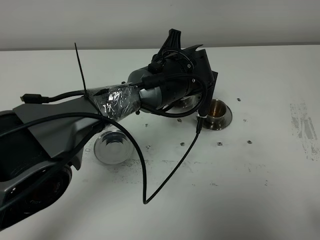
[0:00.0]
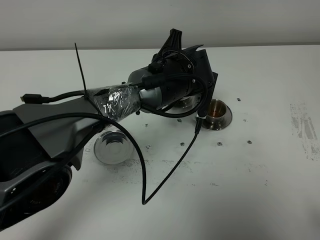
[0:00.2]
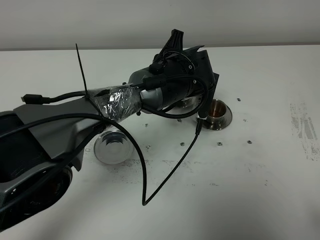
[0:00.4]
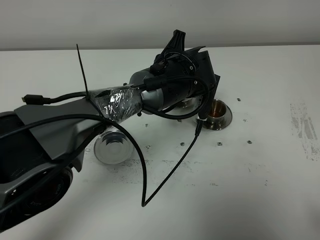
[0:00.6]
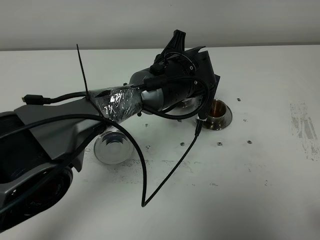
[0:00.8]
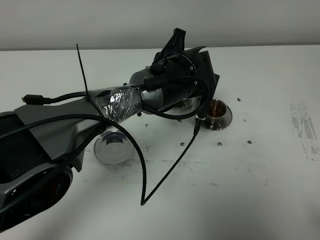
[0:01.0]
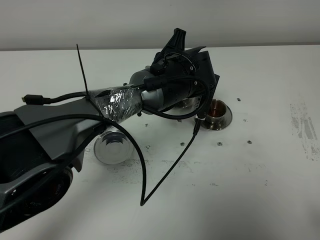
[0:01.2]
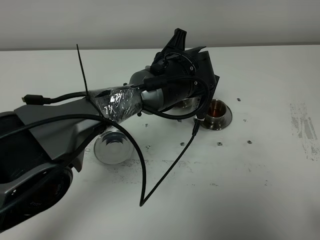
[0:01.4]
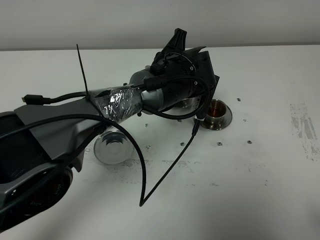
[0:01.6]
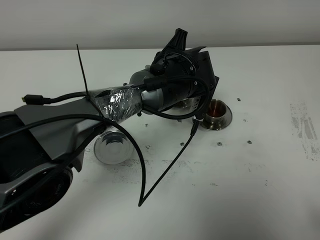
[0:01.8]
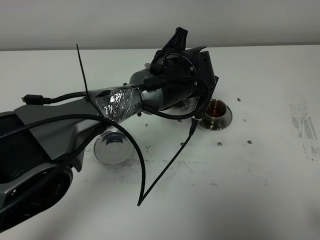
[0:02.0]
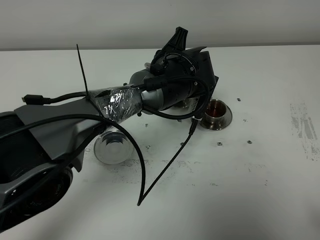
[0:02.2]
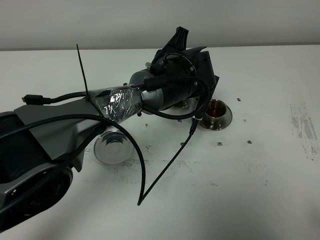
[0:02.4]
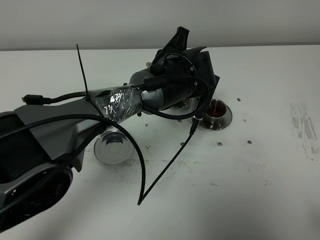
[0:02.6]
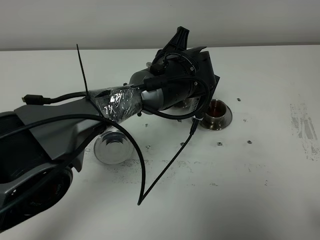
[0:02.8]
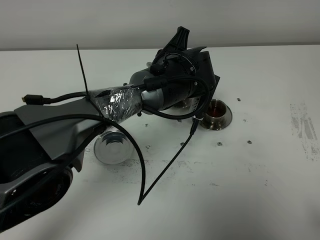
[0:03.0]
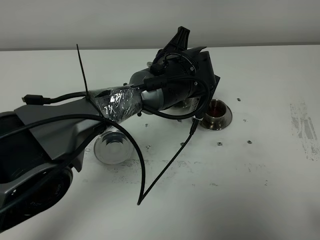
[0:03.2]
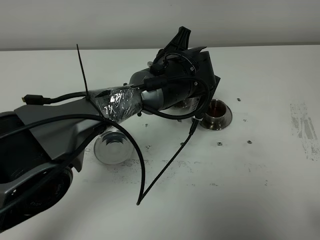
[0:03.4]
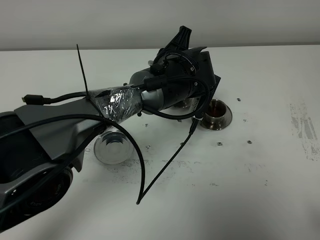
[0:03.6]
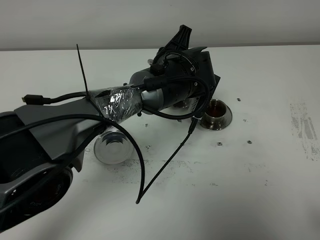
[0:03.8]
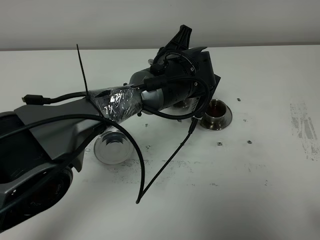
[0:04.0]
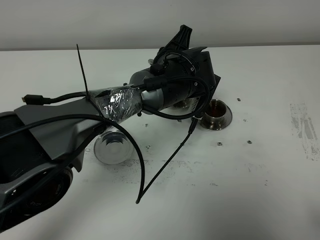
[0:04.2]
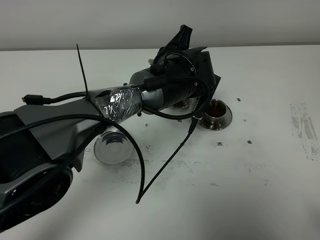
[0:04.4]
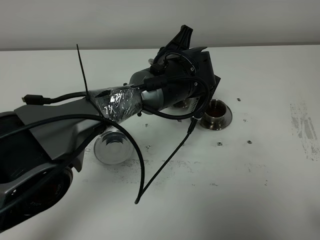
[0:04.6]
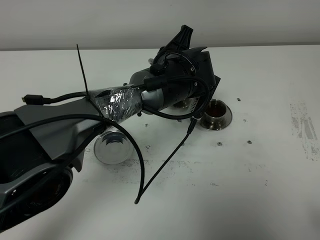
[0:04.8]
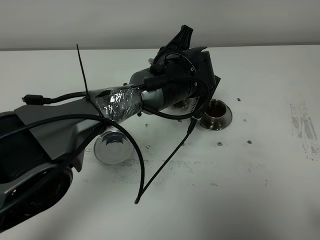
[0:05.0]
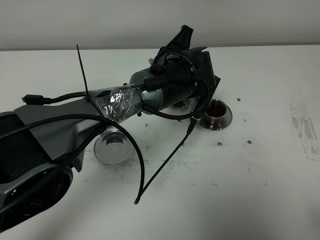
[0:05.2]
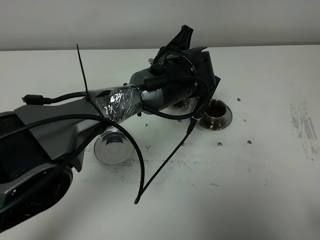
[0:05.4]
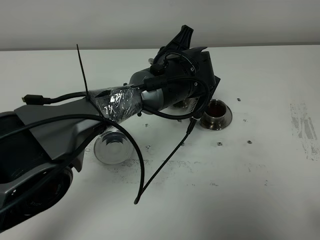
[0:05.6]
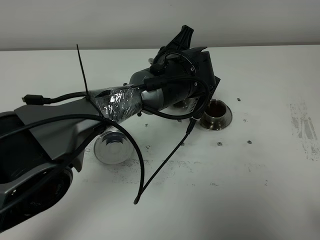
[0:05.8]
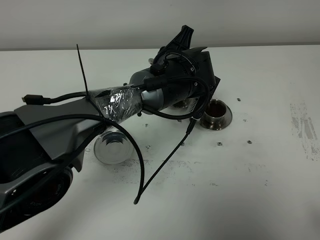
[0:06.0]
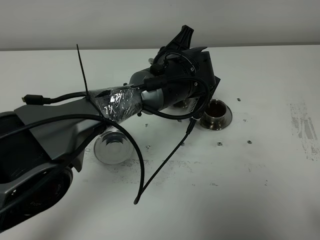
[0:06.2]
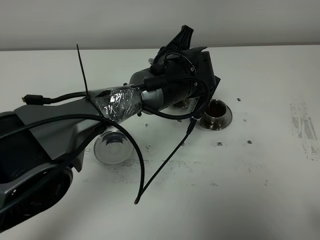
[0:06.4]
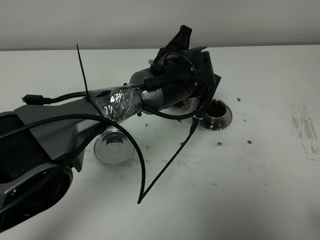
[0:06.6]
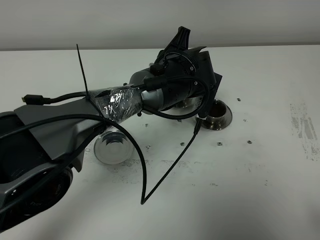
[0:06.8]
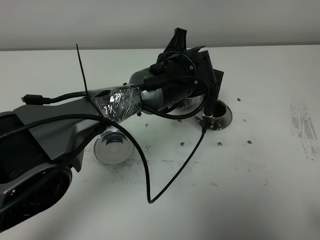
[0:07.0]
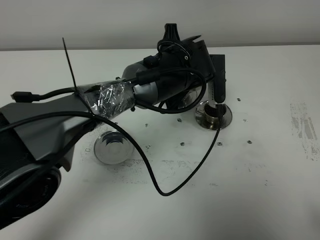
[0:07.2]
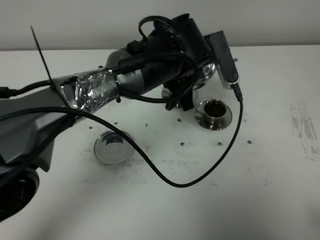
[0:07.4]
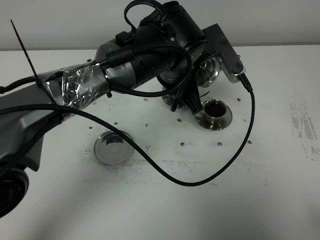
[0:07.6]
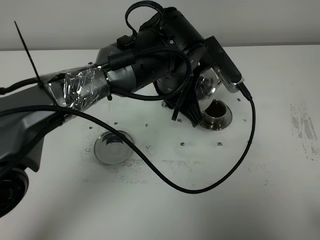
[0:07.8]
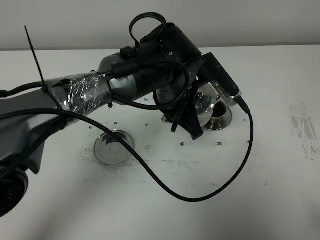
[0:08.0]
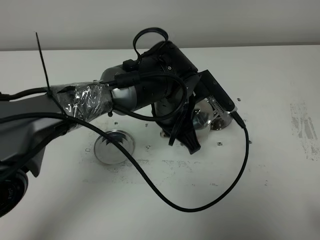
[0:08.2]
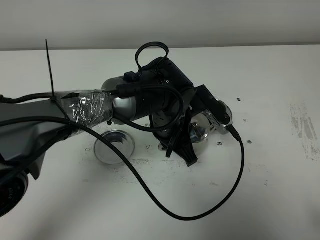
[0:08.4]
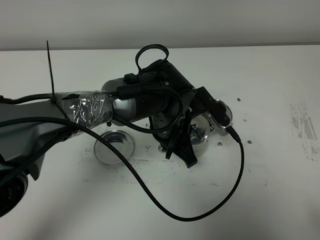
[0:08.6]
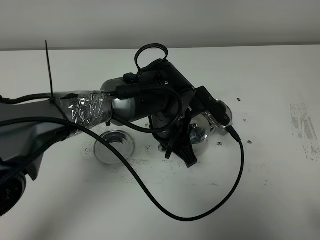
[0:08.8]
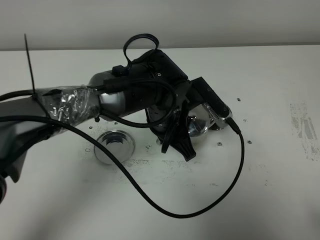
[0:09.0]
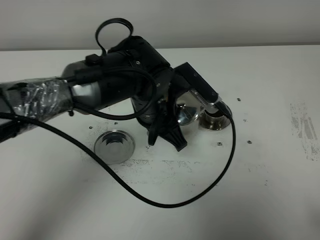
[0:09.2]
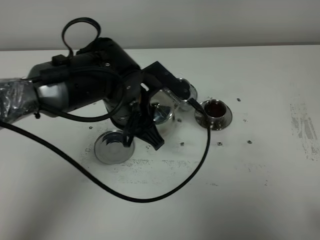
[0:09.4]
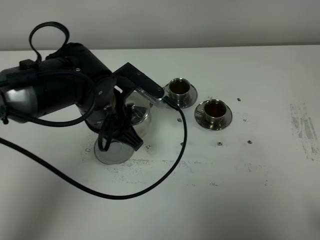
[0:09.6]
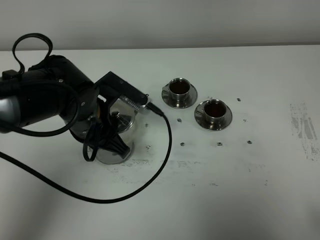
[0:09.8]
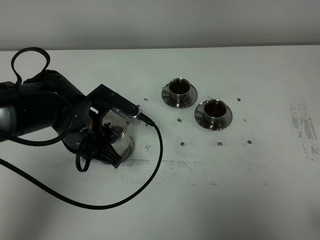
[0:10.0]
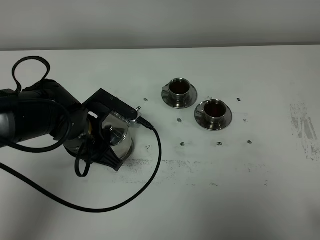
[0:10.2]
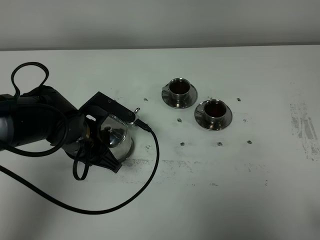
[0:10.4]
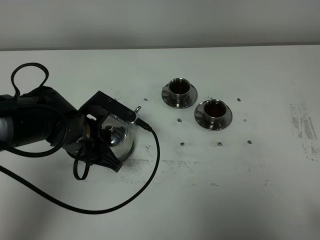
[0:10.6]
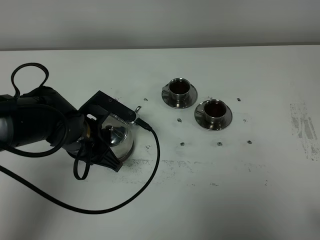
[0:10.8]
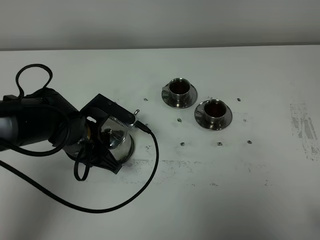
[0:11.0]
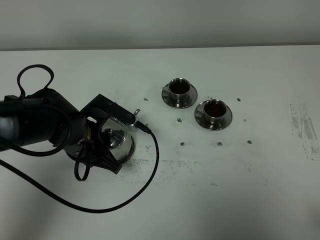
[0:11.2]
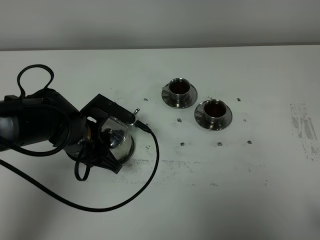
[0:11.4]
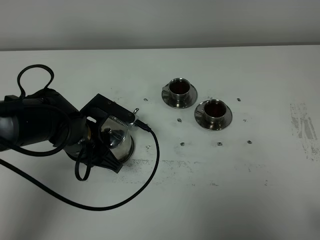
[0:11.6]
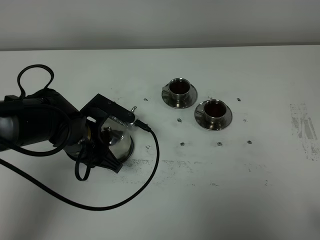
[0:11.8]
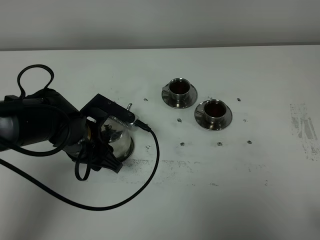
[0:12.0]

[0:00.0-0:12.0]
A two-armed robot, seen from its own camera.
Task of the whole recording: grasp the stainless steel teapot and pour the tea into the two stainless steel teacups one by one, put the stainless steel teapot back in its original place.
Step, 0:00.0 to 0:06.6: Pour tea into the teacup with the left gripper.
0:00.0 to 0:01.6: The grippers stay close to where they were, moving slightly.
0:01.6 to 0:03.0: The two grippers keep their place.
0:03.0 to 0:06.0: Both grippers stay put.
0:06.0 to 0:07.6: The left gripper heads upward, covering roughly 5 cm.
0:07.6 to 0:09.0: The left gripper shifts roughly 5 cm downward.
0:09.0 to 0:10.4: The left gripper shifts roughly 15 cm to the left.
0:10.4 to 0:12.0: The left gripper opens its fingers.

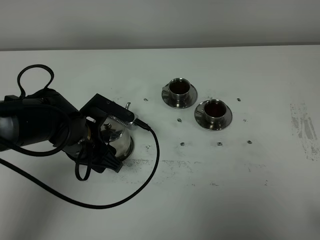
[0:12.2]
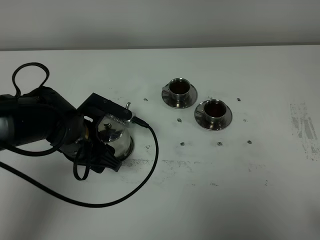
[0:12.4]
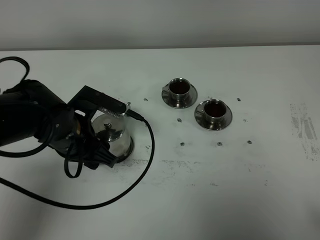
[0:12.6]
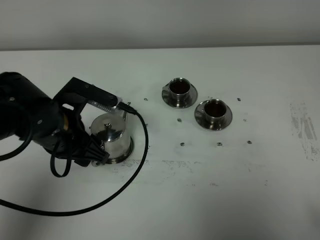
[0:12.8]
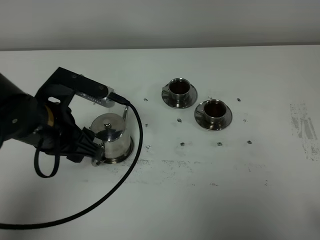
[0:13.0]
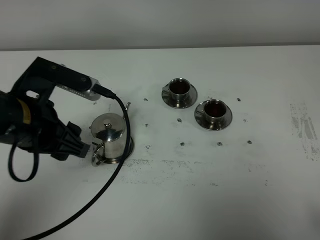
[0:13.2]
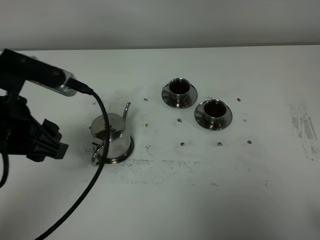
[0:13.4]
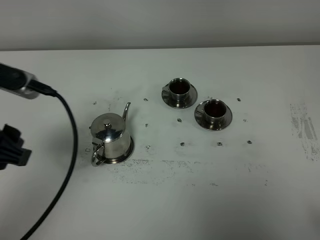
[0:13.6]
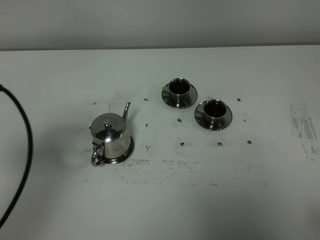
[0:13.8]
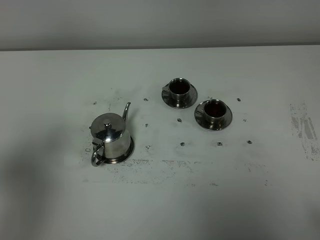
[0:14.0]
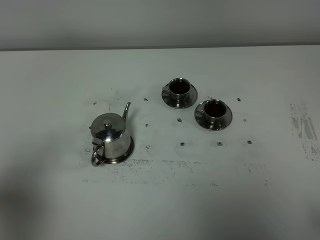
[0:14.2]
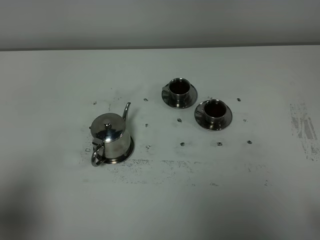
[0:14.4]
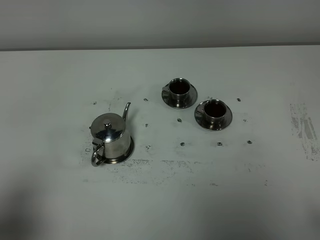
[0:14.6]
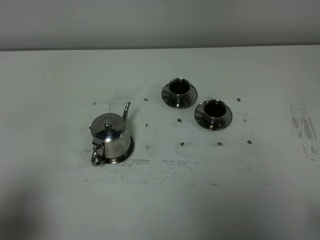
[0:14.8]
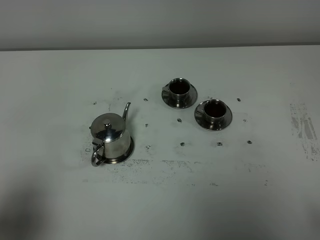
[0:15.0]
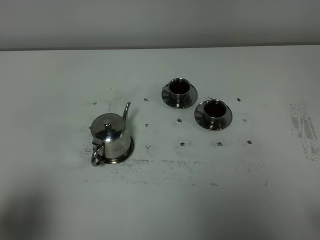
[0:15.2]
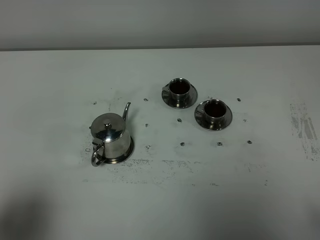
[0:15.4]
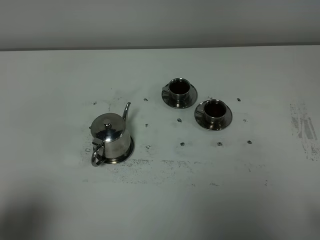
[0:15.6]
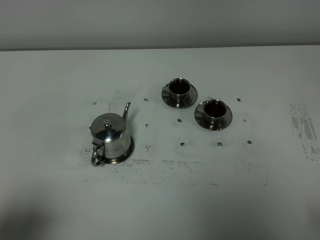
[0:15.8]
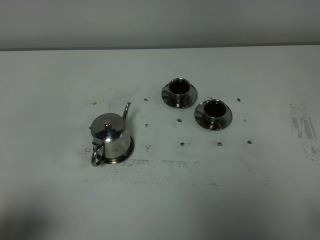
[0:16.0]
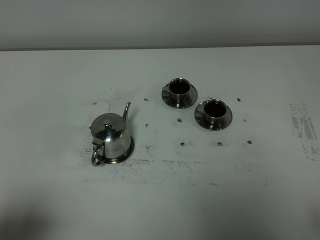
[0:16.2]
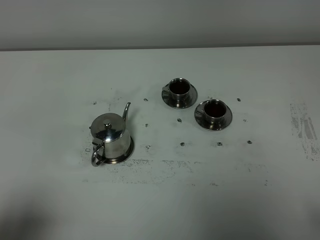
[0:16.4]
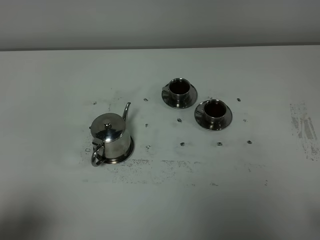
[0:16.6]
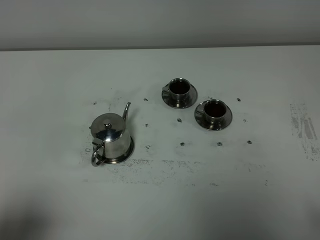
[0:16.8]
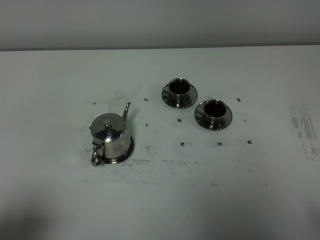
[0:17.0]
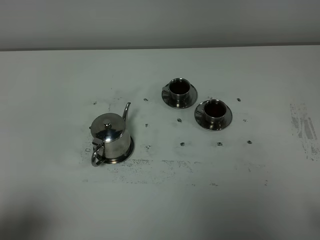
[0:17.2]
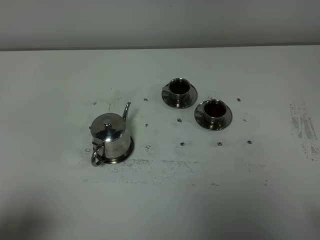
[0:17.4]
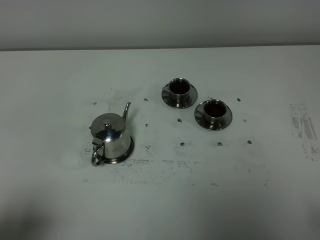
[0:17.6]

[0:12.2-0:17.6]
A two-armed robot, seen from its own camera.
Task of the whole recording: grasp the stainless steel teapot and pour the tea into the two stainless steel teacups one by one, put the stainless steel teapot back in its original place.
0:12.2 to 0:13.6: The left gripper heads upward, backward and to the left, covering some 25 cm.
0:13.6 to 0:15.0: The left gripper is displaced backward and to the left by about 15 cm.
0:16.2 to 0:17.6: Both grippers stay put.

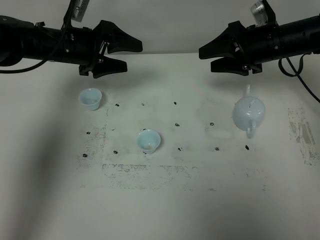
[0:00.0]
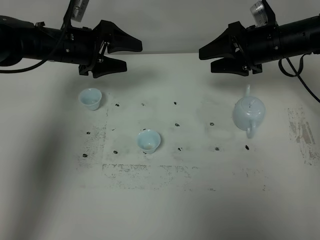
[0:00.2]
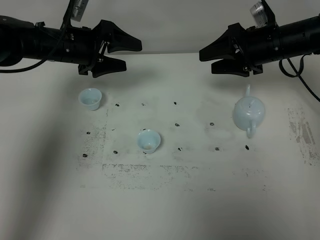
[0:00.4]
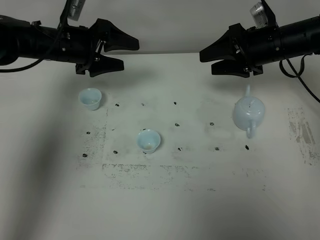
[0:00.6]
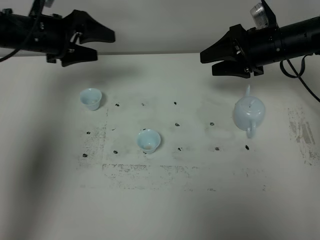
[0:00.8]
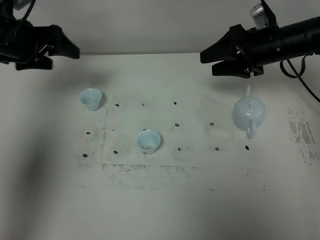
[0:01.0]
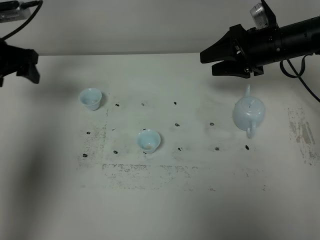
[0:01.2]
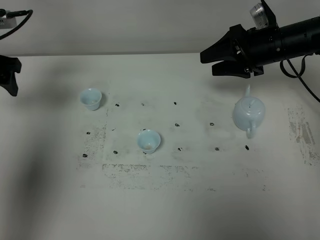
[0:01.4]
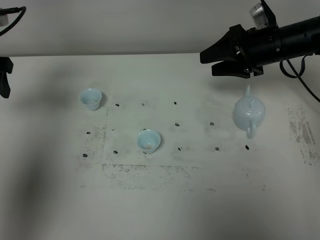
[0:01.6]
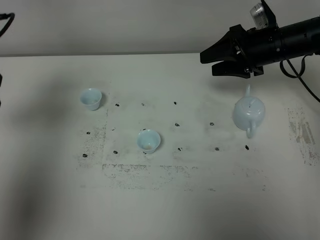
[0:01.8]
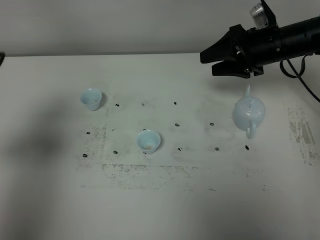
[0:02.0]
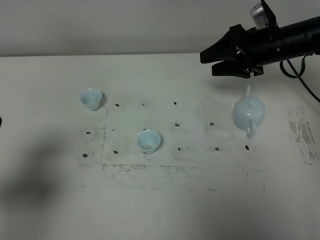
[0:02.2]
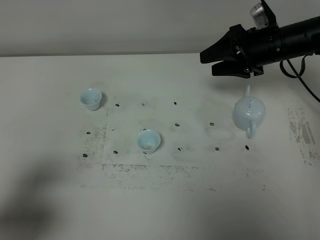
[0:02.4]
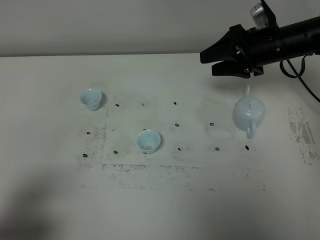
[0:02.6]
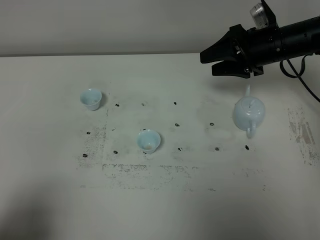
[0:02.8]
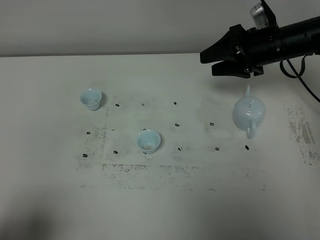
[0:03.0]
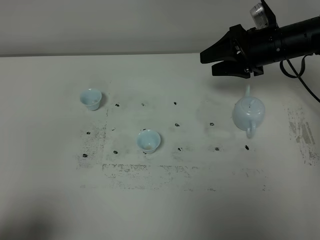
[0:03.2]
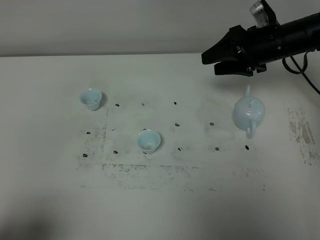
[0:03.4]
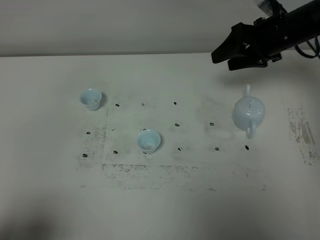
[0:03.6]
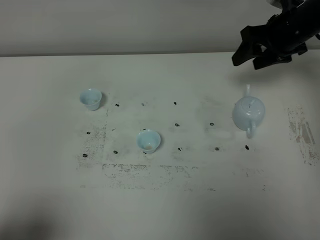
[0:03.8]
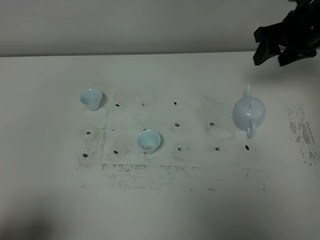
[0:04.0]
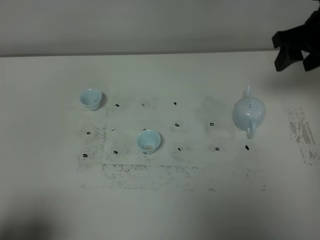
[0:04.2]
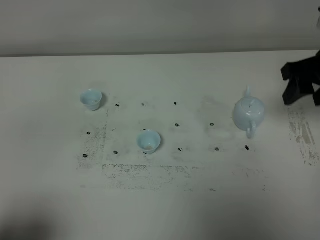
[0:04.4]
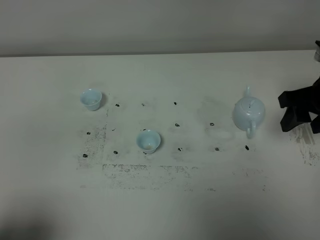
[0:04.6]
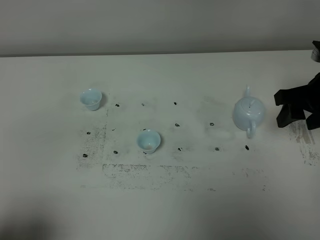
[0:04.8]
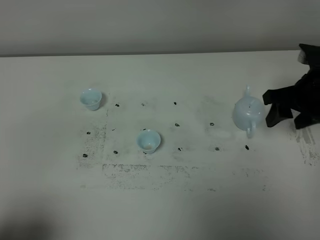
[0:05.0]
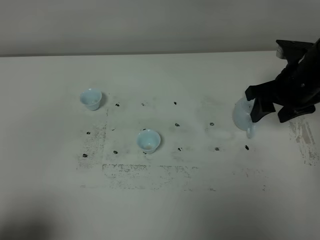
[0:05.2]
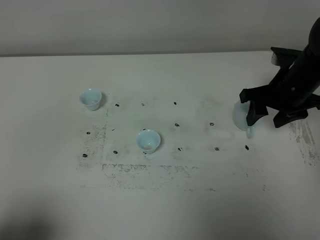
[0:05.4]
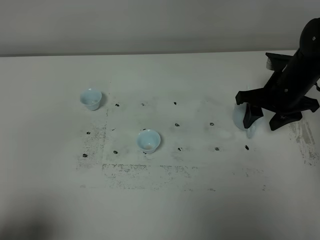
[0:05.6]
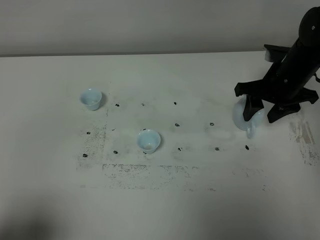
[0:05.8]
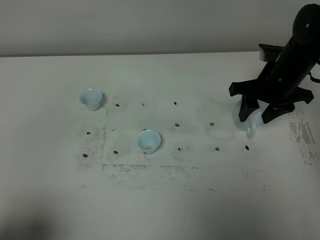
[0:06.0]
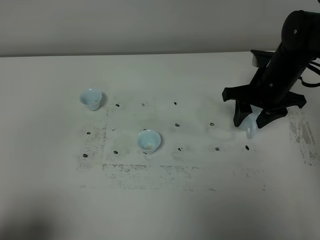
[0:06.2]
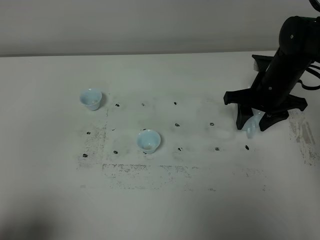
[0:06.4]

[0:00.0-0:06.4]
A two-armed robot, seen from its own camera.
Task of the whole recording: grasp the blue porcelain teapot and pour the tea into the two blue porcelain teacups one by one, put the blue porcelain teapot back in its original place.
0:00.0 to 0:01.6: The left gripper is displaced to the left, backward and upward by about 20 cm.
0:01.6 to 0:03.2: The left gripper shifts approximately 35 cm backward.
0:03.2 to 0:04.8: The right gripper heads backward and to the right, covering about 15 cm.
0:04.8 to 0:06.4: The right gripper is displaced forward, downward and to the left by some 10 cm.
